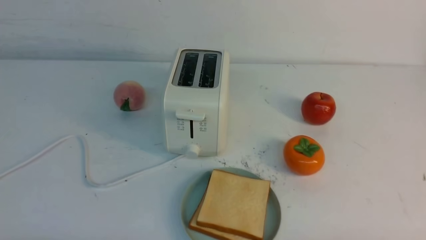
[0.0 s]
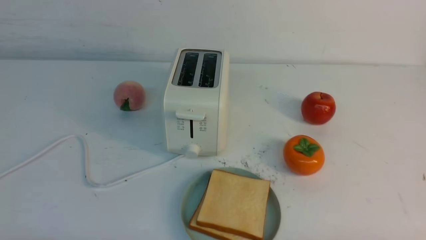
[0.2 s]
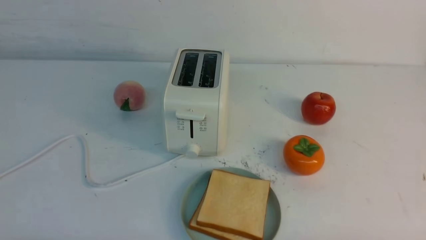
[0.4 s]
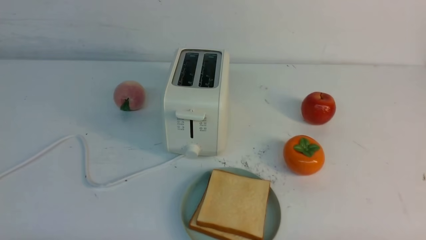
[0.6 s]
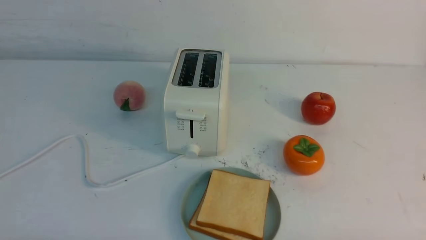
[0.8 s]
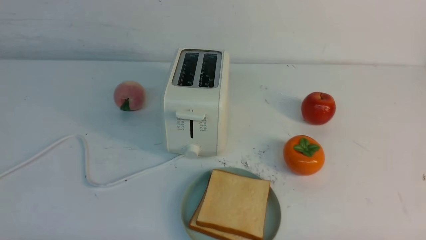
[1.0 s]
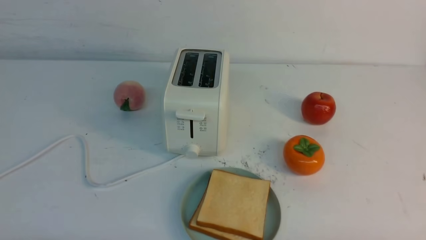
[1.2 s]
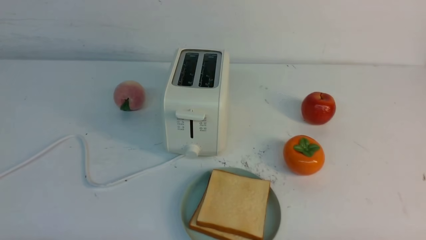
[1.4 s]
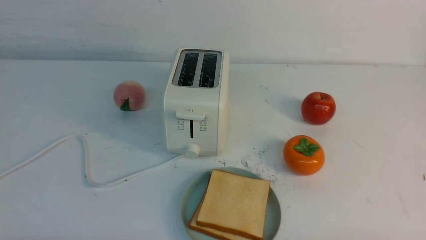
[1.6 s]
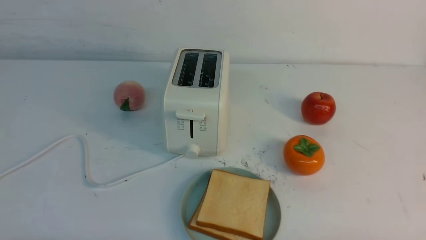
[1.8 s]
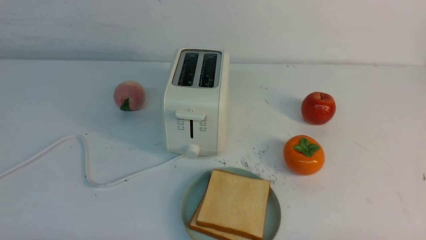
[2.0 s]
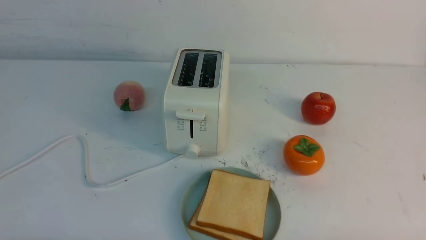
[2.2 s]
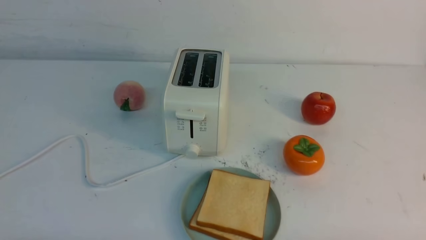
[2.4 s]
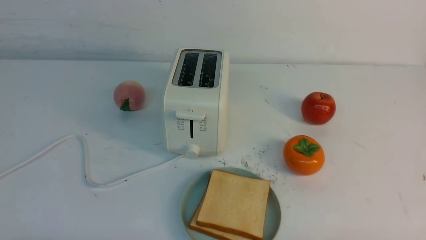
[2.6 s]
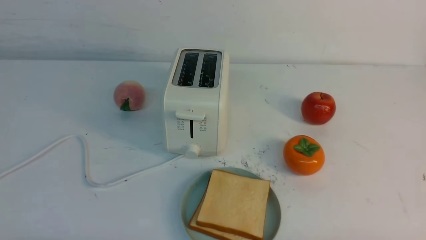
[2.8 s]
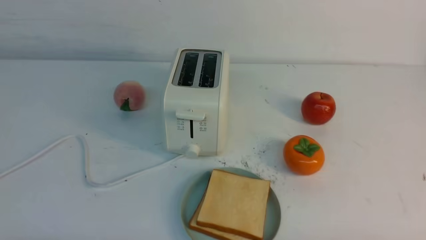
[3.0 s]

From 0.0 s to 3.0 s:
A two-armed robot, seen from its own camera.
Task of the whole recording: take toasted bread from bread machine on white table place on plate.
From 0.0 s to 3.0 s: Both grippers stay put.

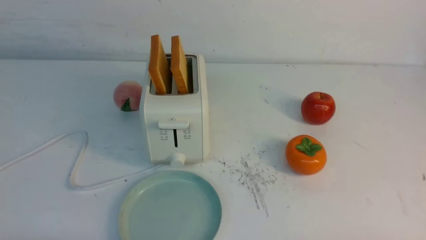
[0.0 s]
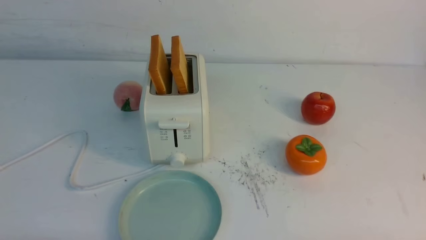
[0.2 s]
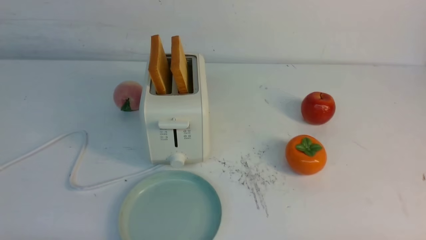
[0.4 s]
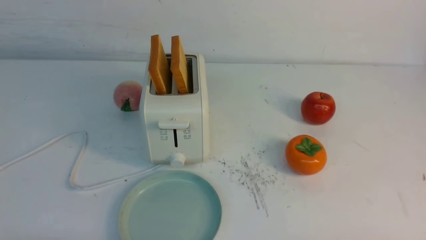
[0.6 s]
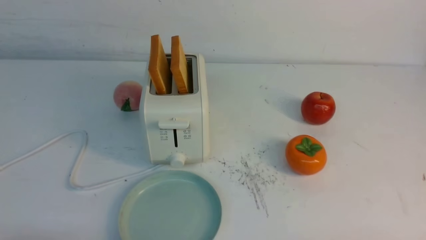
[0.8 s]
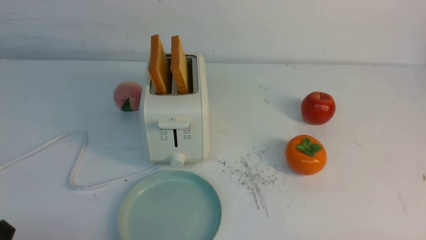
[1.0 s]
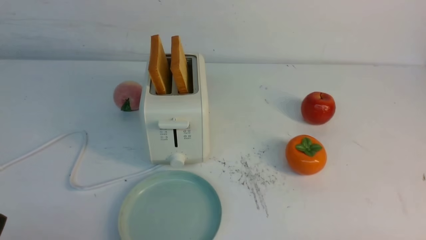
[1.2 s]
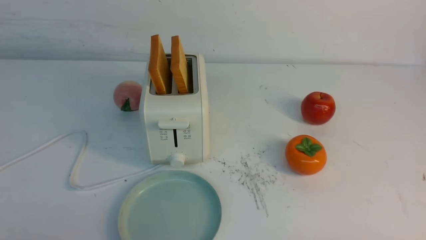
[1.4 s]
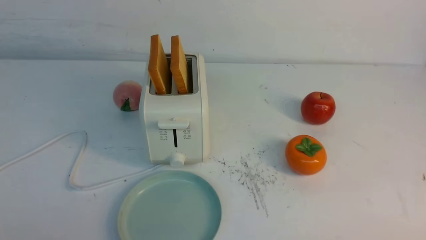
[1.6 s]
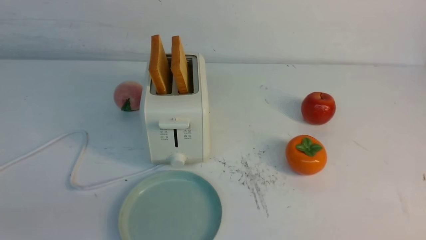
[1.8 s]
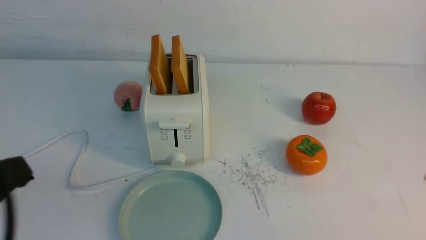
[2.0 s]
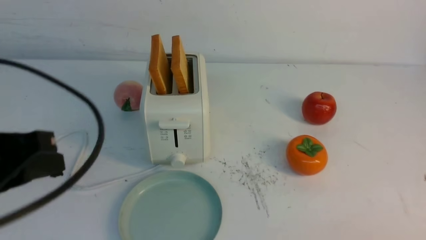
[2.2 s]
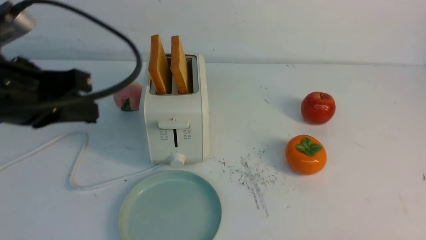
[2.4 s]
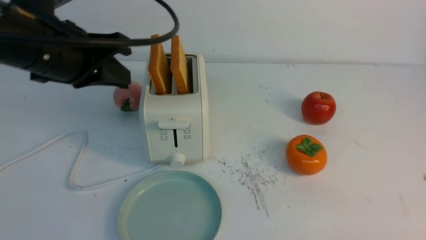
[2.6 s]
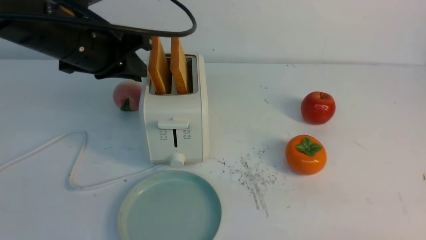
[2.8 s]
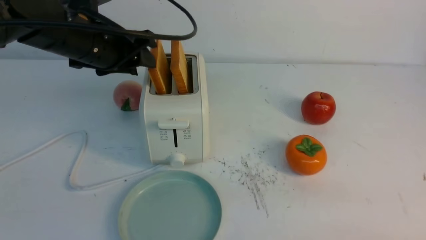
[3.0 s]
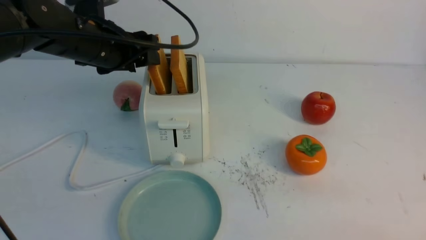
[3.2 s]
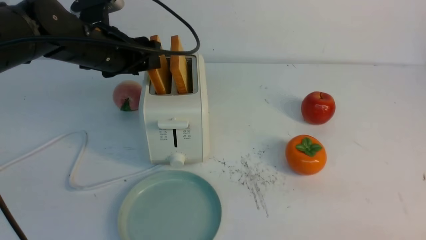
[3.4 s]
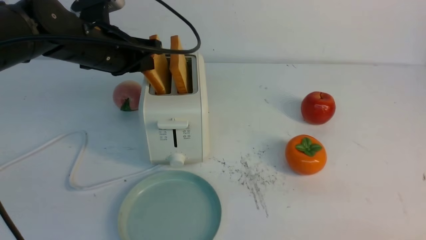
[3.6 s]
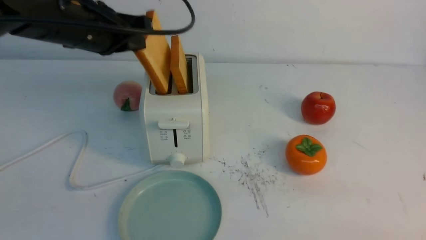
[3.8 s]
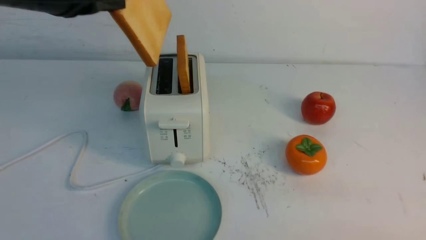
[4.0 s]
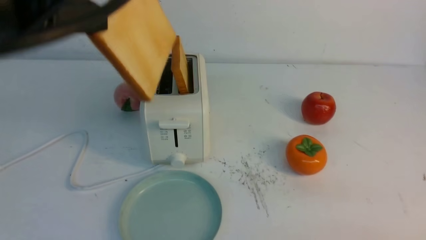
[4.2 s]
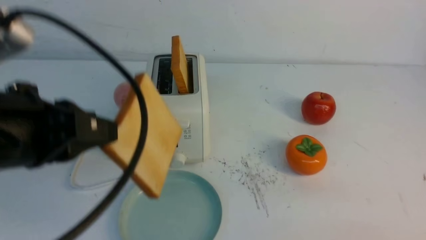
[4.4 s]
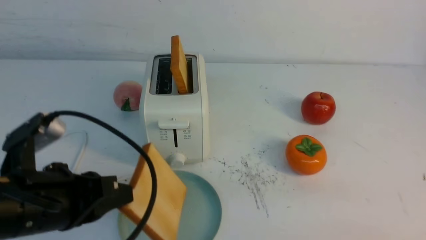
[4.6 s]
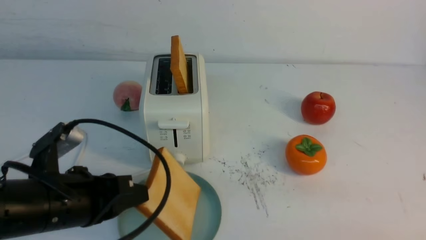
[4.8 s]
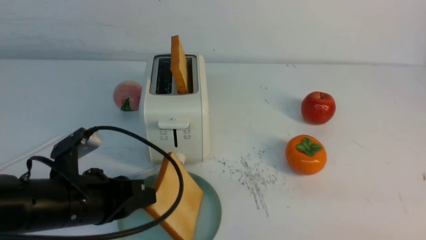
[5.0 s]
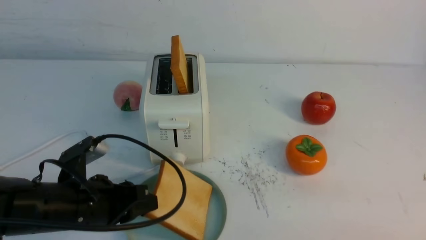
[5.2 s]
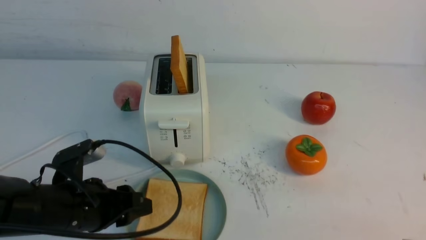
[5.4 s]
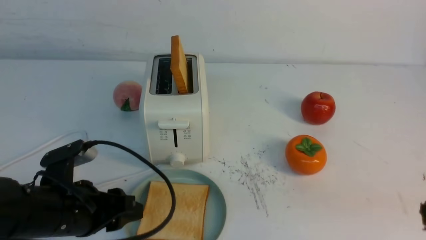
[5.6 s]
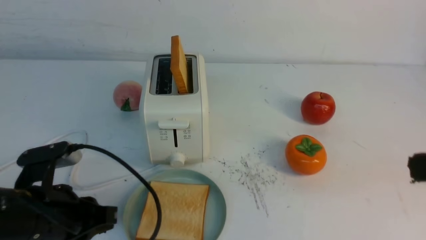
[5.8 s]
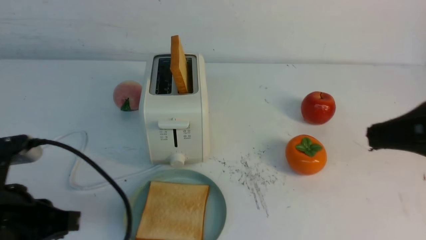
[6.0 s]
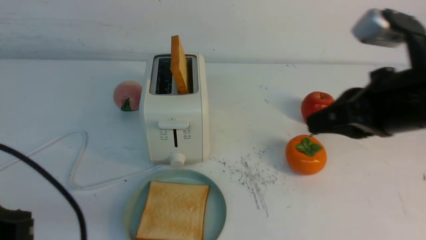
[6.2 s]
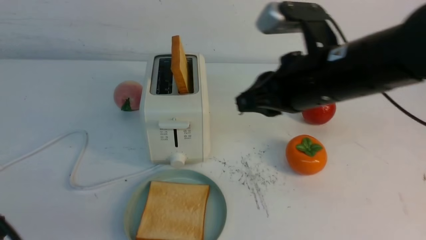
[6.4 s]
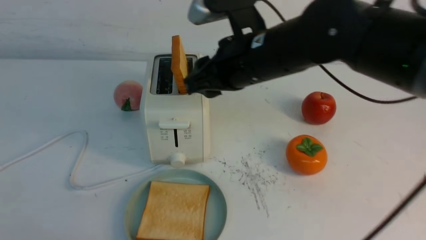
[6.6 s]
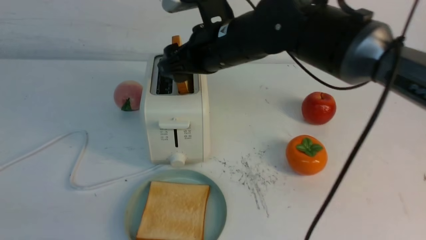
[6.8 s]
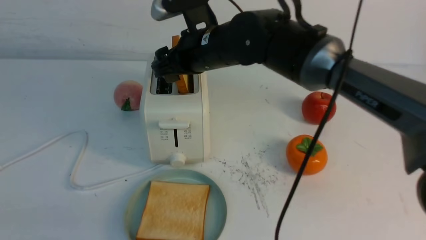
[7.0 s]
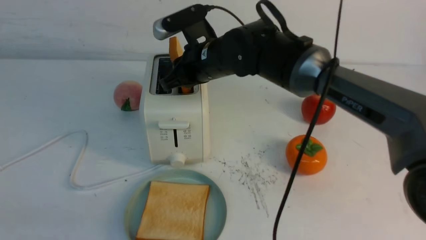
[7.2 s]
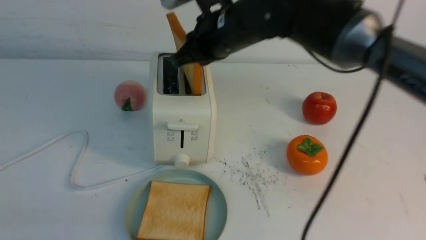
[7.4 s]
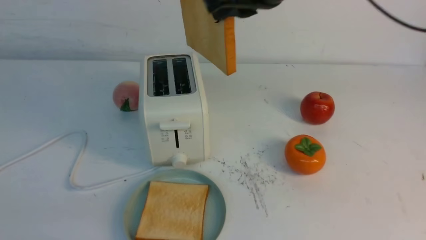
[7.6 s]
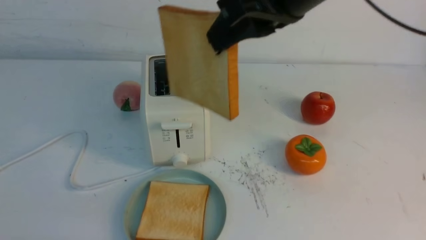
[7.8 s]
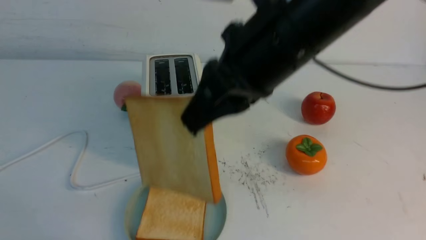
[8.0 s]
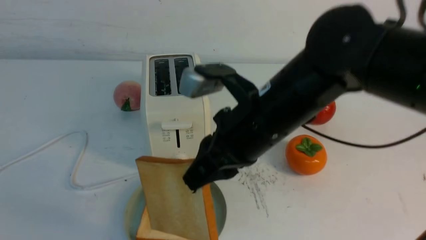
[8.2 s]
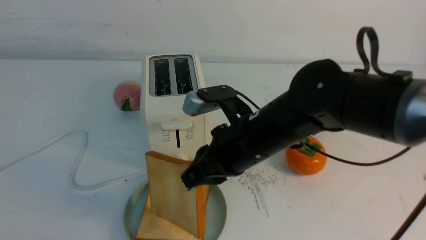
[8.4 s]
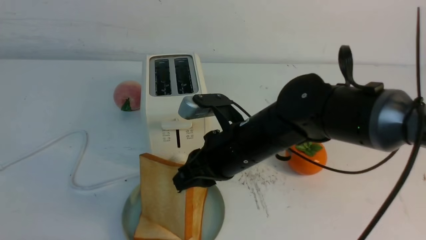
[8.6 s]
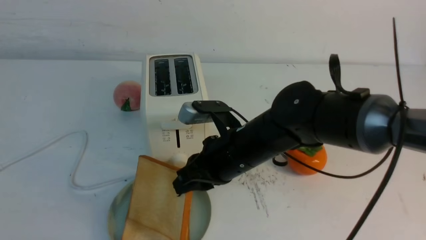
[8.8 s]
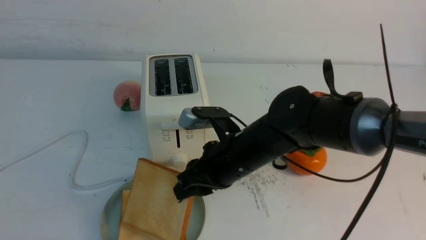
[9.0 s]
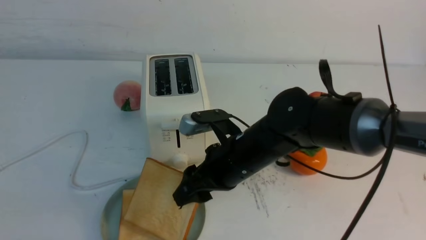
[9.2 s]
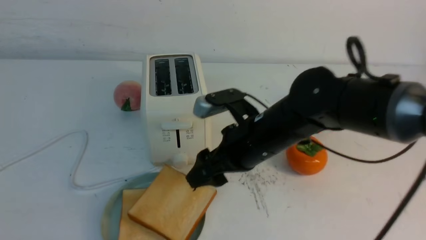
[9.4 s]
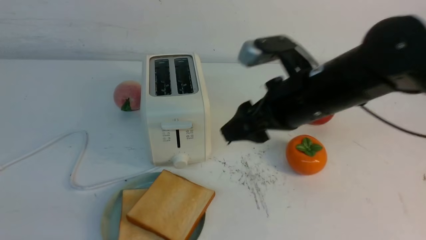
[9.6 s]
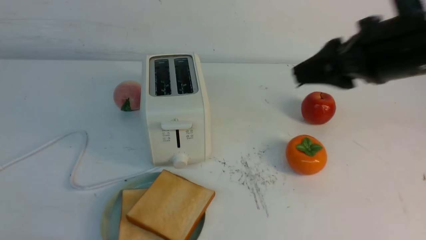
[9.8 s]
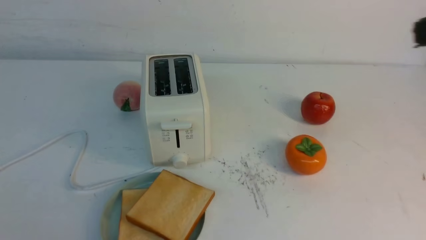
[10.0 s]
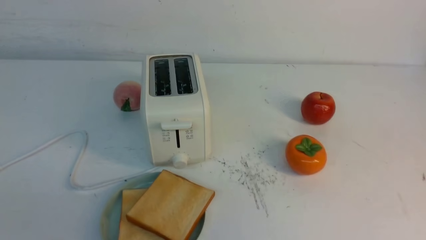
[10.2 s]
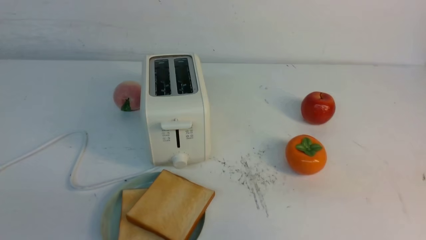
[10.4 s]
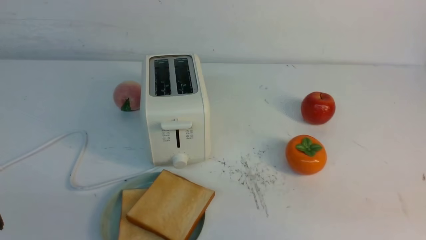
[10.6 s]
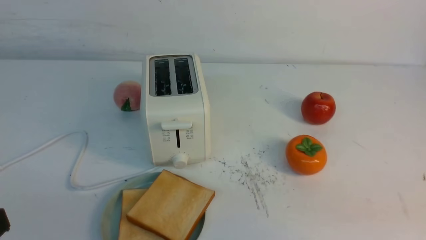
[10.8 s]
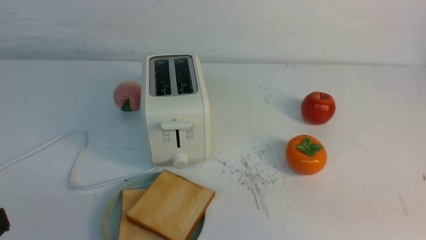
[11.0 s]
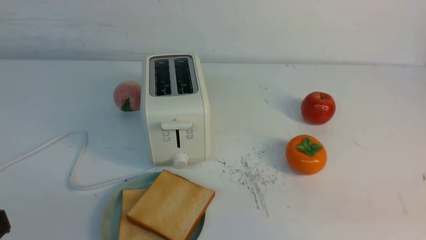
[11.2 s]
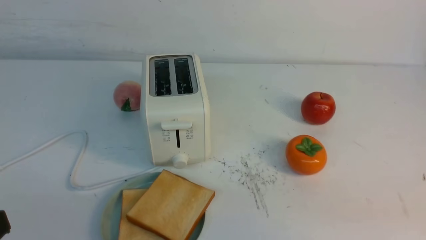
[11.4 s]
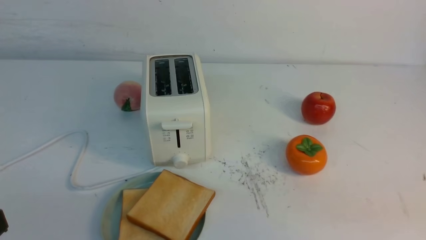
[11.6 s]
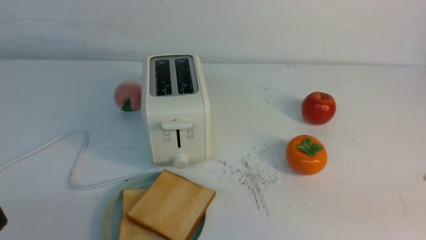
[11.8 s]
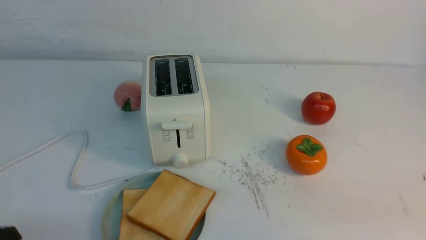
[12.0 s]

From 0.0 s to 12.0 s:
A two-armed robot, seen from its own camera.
Task of the whole recording: take toasted bread from bread machine on white table place on plate.
Step, from 0.0 s to 3.8 s: use the left arm to take out a slice of bread.
Step, from 4.0 s to 5.4 s: use the left arm to put a slice of bread into the empty plate.
Step, from 5.6 s to 7.6 s: use the right arm to take out a slice of bread.
Step, from 7.8 s to 9.6 s: use the right arm to put a slice of bread into the plate.
From 1.6 s to 3.0 s: The left gripper is displaced forward by some 30 cm, and opens its fingers, while the right gripper shifts some 10 cm upward, and closes up.
From 3.0 s to 4.4 s: The left gripper moves backward, some 20 cm, and closes.
From 4.4 s to 6.0 s: The right gripper is displaced upward and forward by about 15 cm. Meanwhile the left gripper heads downward, covering some 10 cm, and opens, then closes again.
From 6.0 s to 7.6 s: The right gripper goes some 20 cm to the left, forward and upward, and opens, then closes once more, while the left gripper goes approximately 15 cm backward.
From 7.6 s to 9.0 s: The right gripper is displaced downward by roughly 25 cm.
From 9.0 s to 10.4 s: The right gripper shifts approximately 35 cm to the right, backward and upward, and closes.
